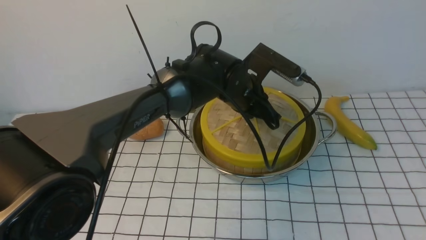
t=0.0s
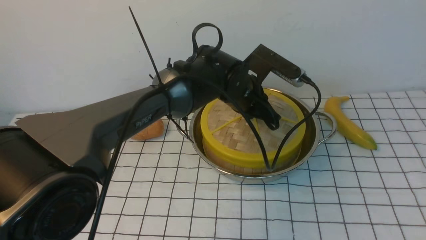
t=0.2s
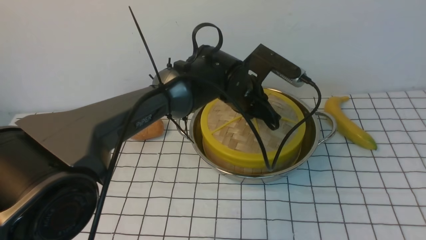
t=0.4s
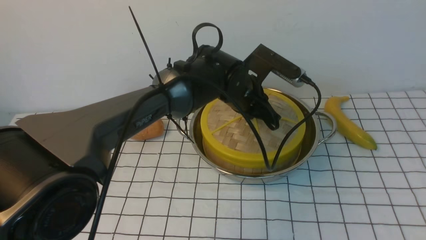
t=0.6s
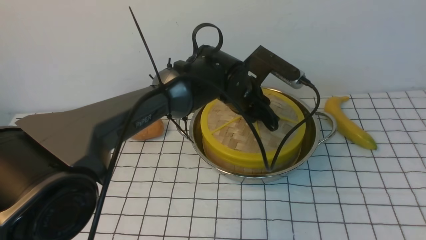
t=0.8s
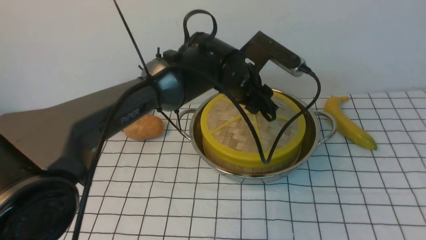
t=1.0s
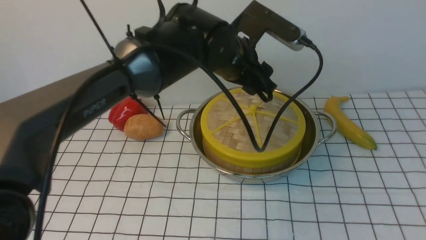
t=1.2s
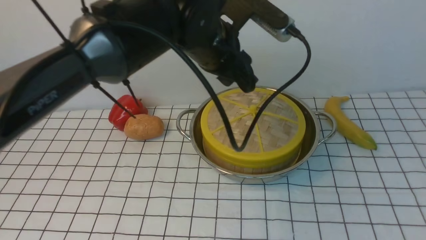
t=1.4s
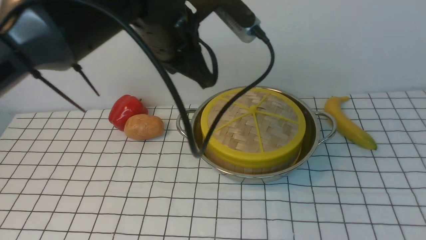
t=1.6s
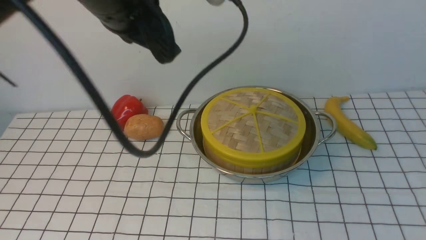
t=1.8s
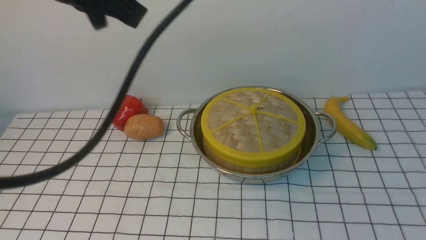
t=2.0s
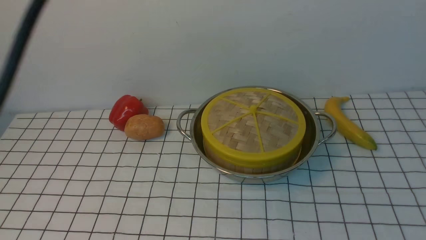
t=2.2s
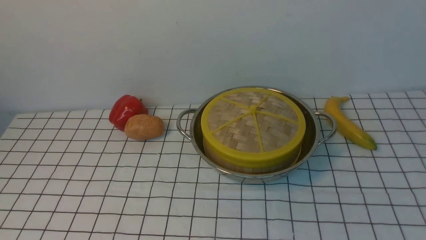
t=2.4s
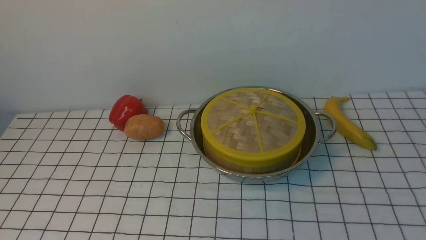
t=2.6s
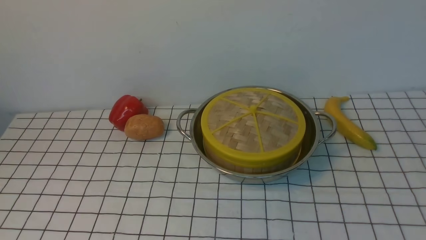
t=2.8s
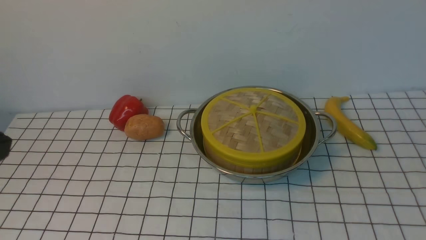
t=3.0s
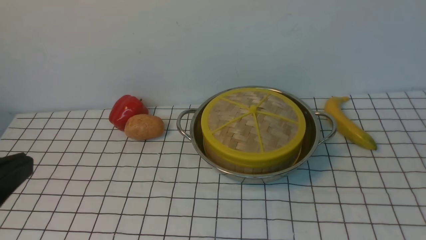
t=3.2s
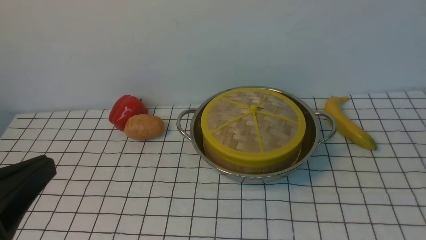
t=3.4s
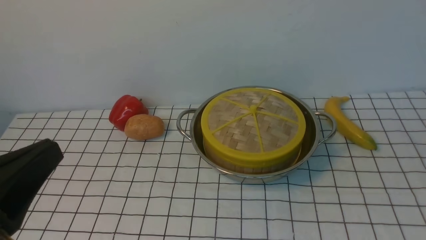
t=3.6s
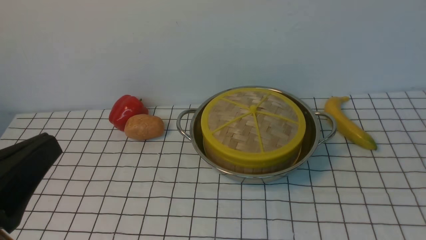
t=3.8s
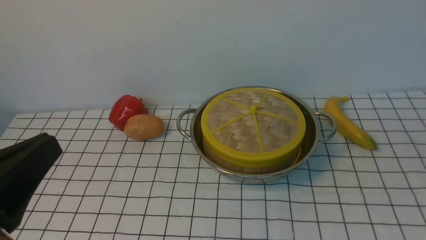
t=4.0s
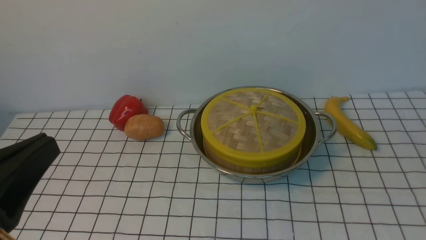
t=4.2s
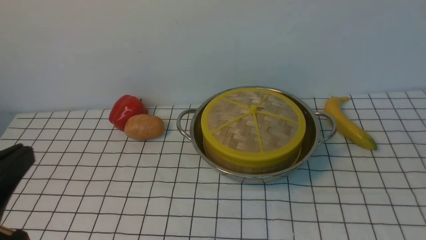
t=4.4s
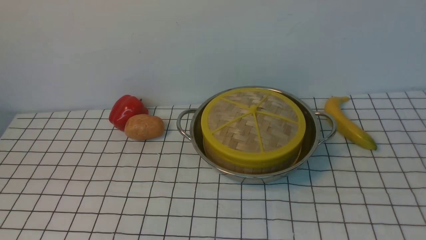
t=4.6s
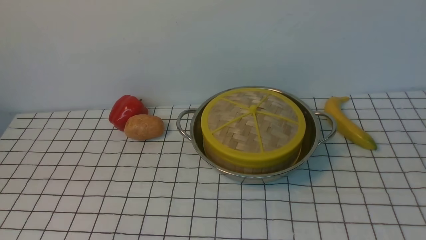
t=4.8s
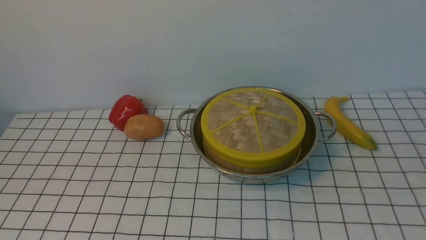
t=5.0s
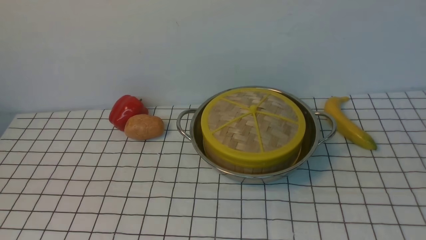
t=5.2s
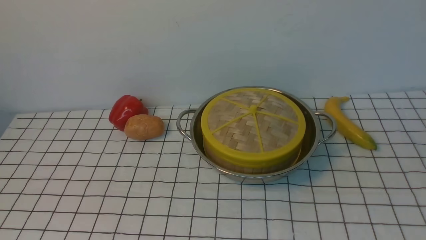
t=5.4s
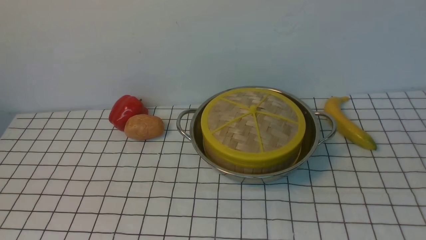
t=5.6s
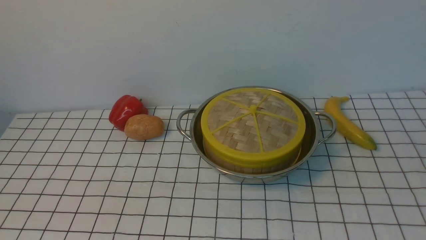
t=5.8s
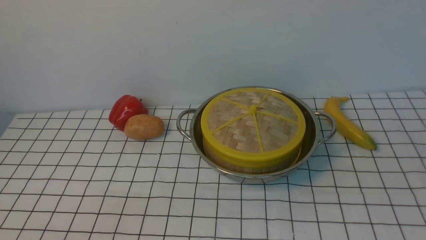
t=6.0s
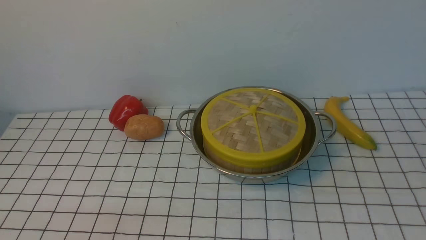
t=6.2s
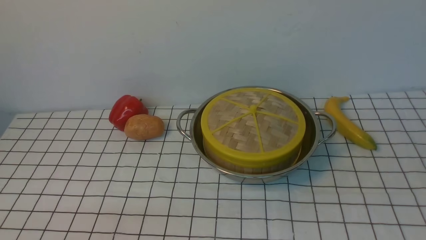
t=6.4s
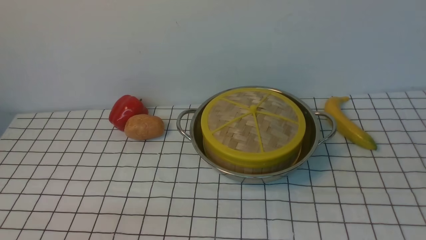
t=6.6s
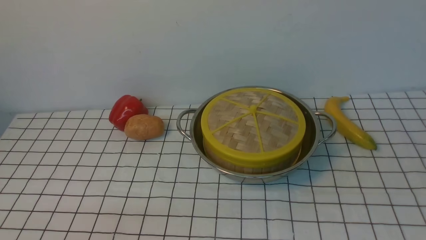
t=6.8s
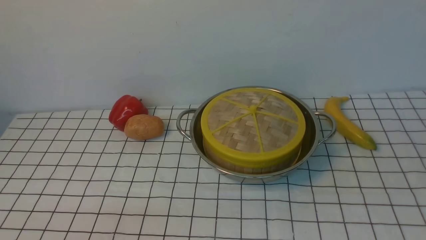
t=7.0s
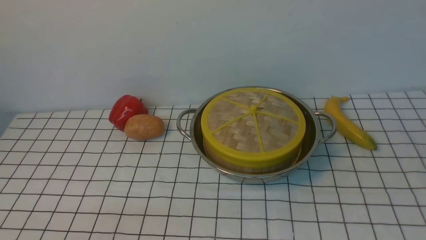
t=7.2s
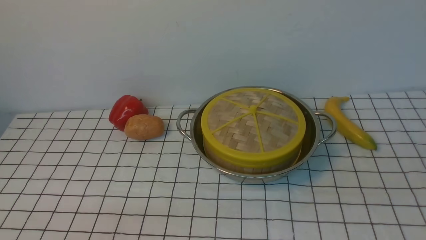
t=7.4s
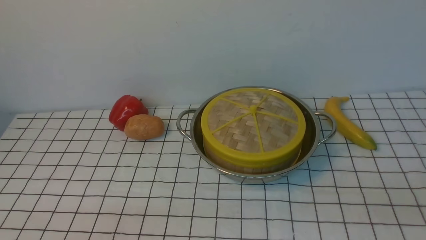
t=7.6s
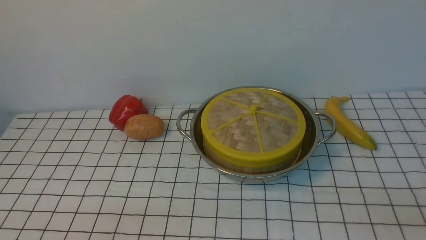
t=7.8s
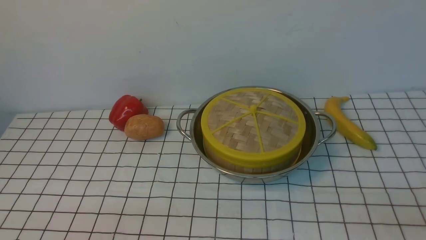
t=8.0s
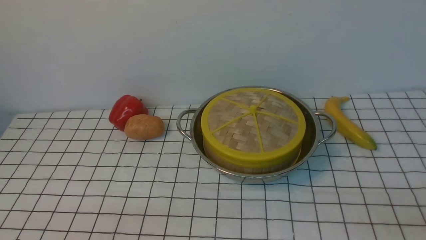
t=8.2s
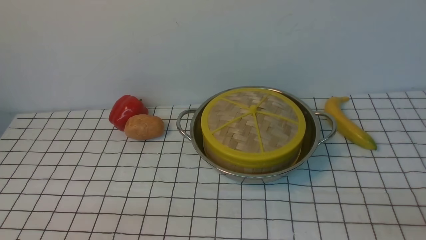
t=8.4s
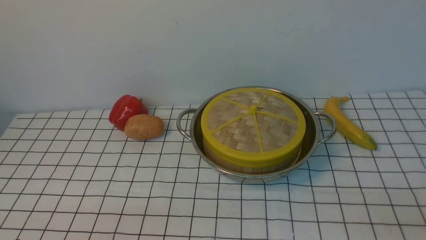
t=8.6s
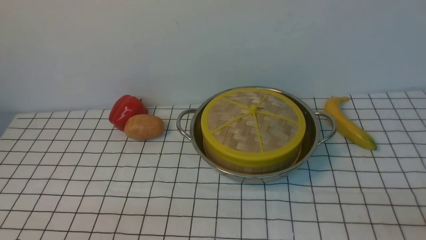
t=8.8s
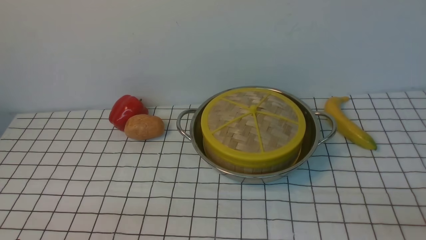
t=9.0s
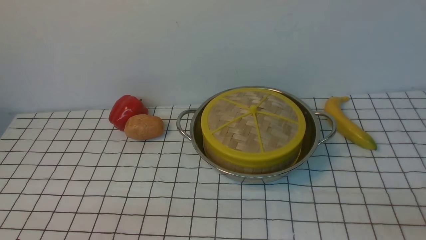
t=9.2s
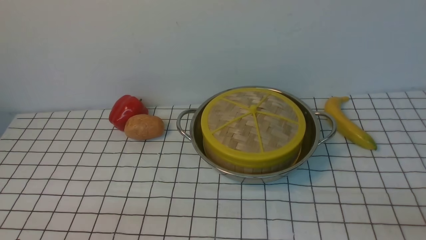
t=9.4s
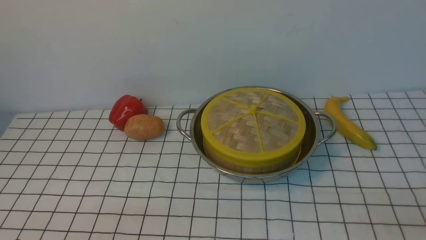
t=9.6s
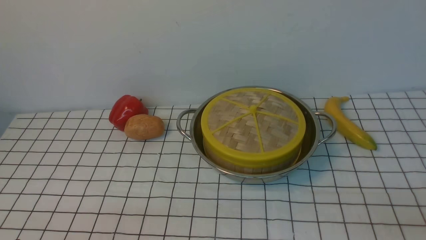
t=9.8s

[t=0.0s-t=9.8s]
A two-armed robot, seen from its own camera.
Task of the whole recording: place the steamer in the pot on the white tablecloth, and put the lid on the steamer.
t=0.0s to t=1.4s: The left gripper heads upward and to the left, covering roughly 15 cm, and opens its fingers.
t=1.4s to t=2.8s: The left gripper travels backward and to the left by some 35 cm, and closes up. The right gripper moves downward and backward, about 15 cm, and closes its fingers.
t=2.8s to t=4.2s: The left gripper heads downward, covering about 10 cm.
t=4.2s to t=5.6s: The left gripper moves backward and to the left, roughly 10 cm.
t=8.4s to t=9.8s: The two grippers keep their place.

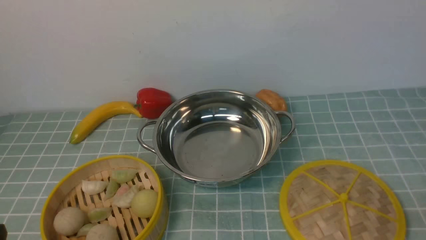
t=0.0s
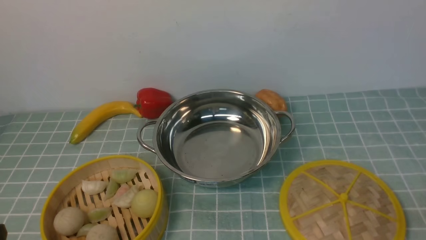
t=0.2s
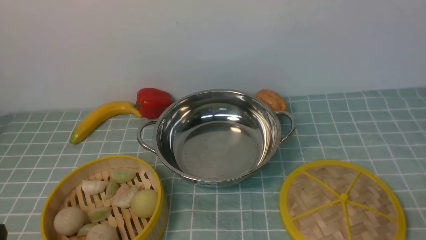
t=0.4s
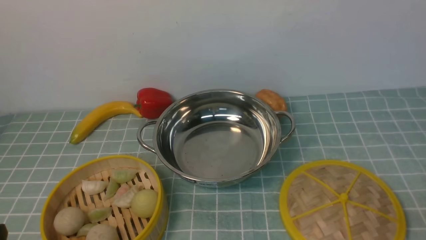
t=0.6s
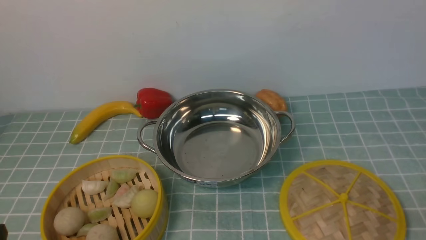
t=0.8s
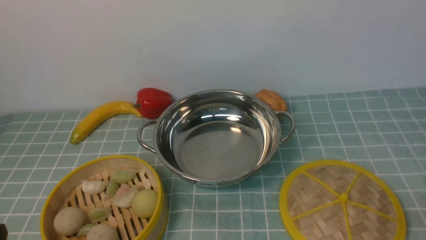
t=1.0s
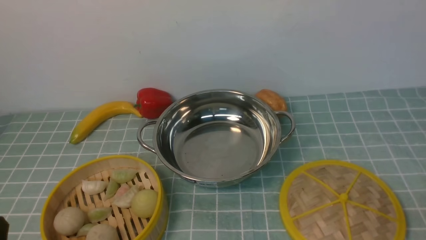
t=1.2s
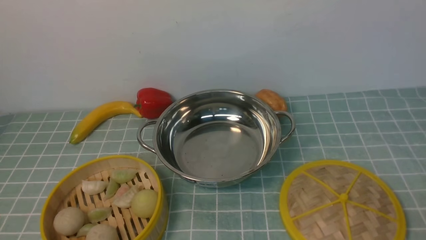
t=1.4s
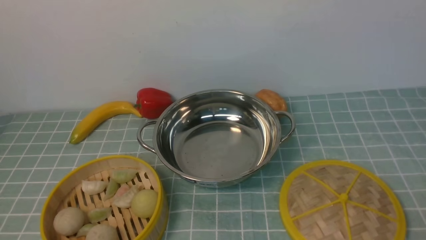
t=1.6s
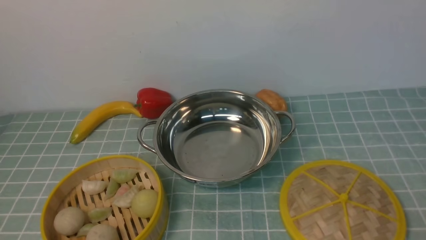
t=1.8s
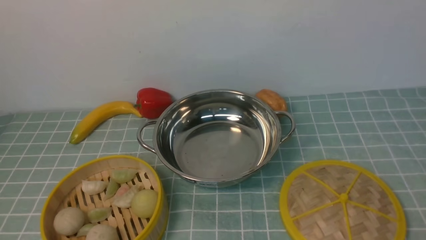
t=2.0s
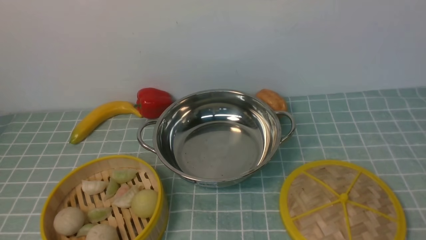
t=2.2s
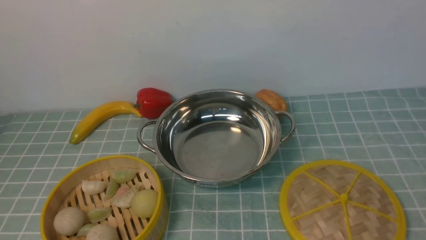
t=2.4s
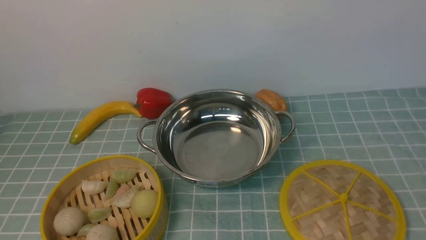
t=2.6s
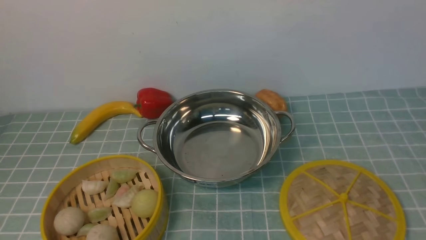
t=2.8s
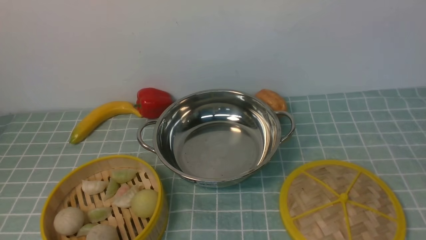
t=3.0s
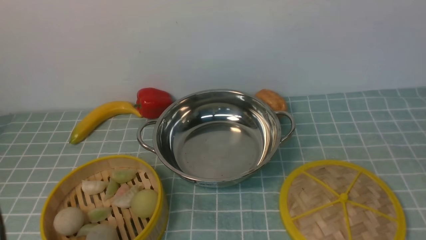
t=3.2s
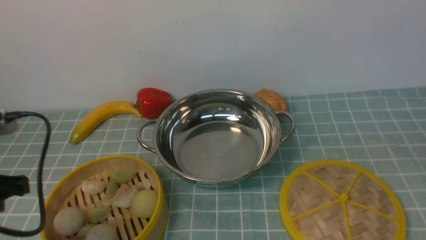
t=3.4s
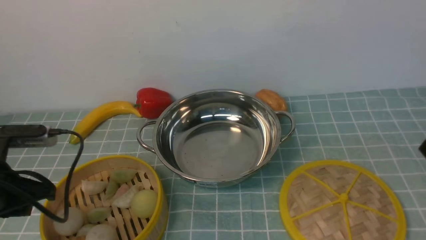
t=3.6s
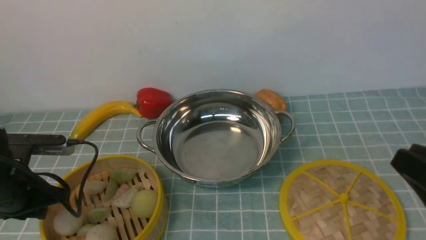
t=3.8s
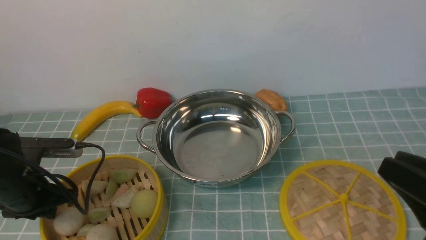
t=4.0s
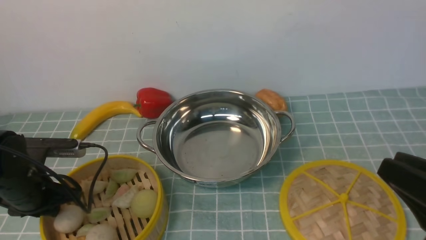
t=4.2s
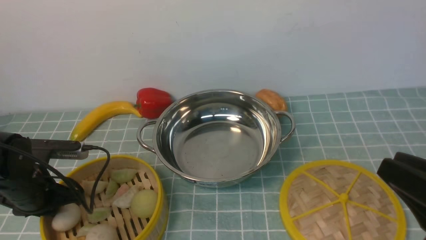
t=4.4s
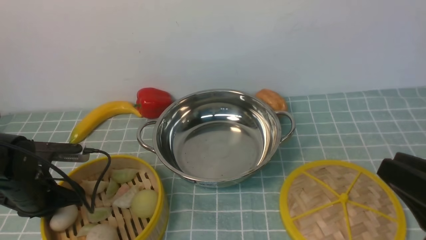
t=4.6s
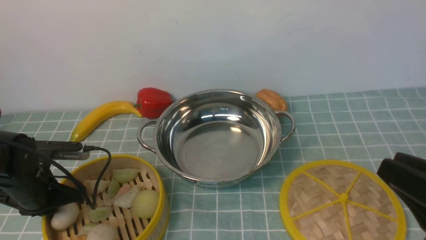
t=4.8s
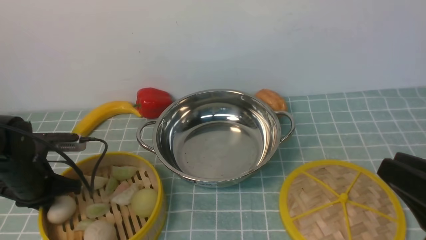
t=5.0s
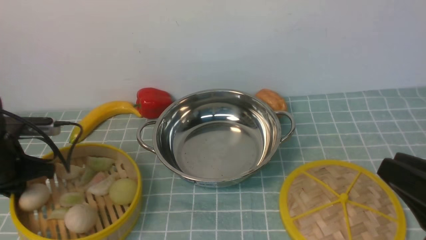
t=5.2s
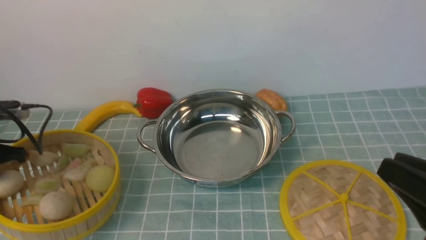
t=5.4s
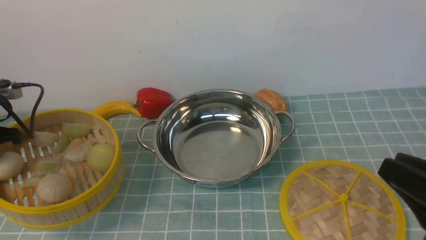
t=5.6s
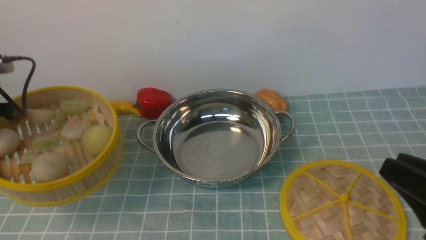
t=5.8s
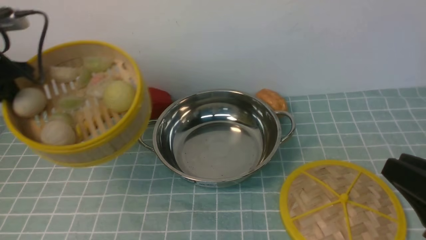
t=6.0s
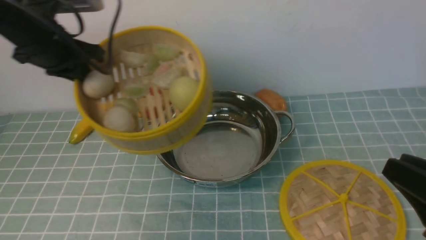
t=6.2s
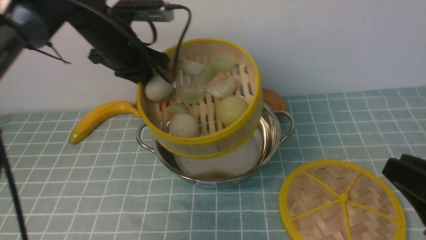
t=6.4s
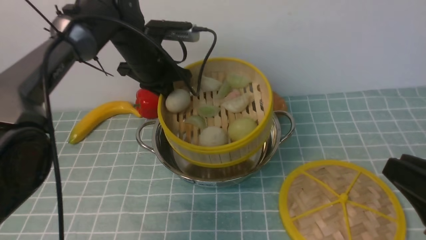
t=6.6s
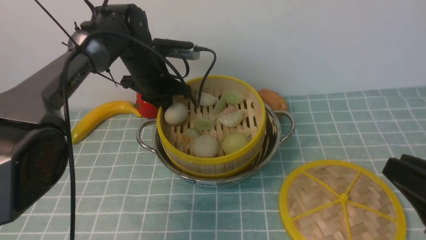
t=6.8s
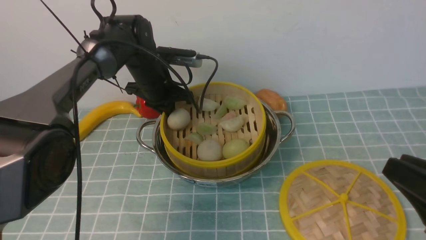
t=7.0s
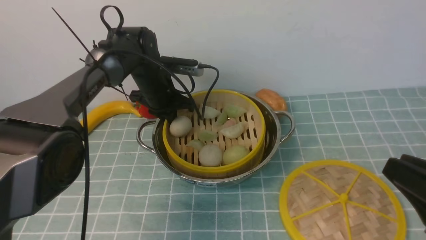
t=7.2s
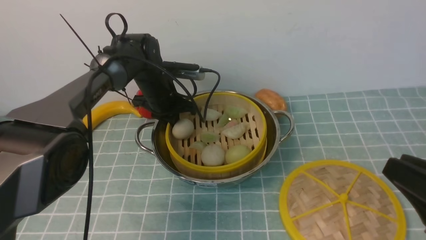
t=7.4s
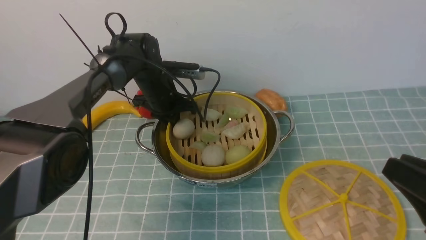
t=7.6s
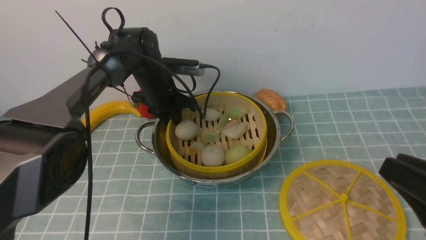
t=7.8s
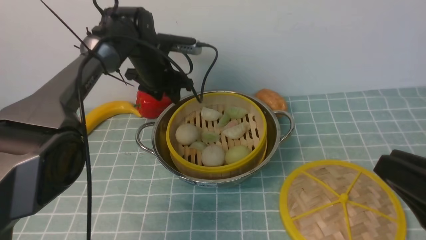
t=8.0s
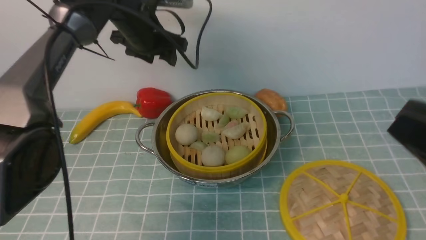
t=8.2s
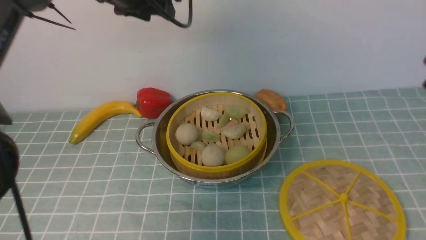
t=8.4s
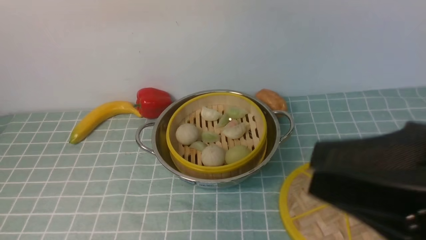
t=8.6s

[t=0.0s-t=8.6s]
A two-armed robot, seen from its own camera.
Task of the whole recording: place the steamer in the pot on the blue tablecloth, and put the lid on the steamer.
Step, t=0.0s to t=5.4s: use the left arm to lift the steamer closest to it.
Step, t=5.6s to t=8.2s: use the left arm to put the steamer into the iron steamer pot in the middle.
t=2.8s to t=4.4s: The right gripper heads forward, covering about 10 cm. Meanwhile the left gripper moves forward and downward, approximately 30 cm.
t=4.4s to t=5.8s: The left gripper moves upward, to the left and forward, roughly 15 cm, and closes its fingers.
t=5.8s to t=7.2s: The left gripper heads to the right, forward and downward, covering about 30 cm.
t=7.2s to t=8.6s: The left gripper is displaced upward and backward by about 35 cm, and opens its fingers. Meanwhile the right gripper heads upward and to the left, covering some 10 cm.
